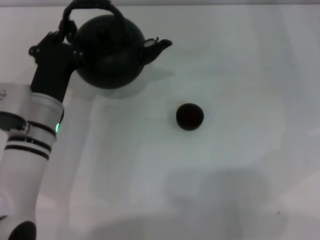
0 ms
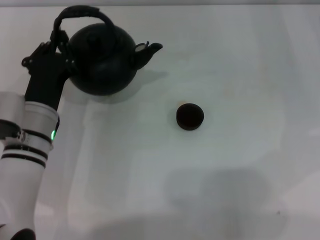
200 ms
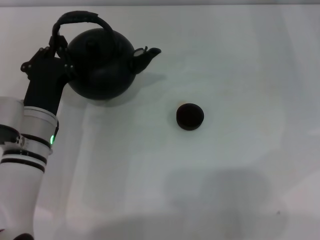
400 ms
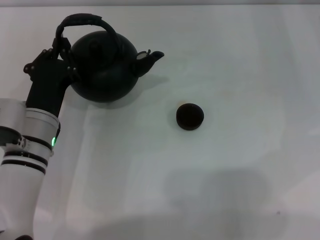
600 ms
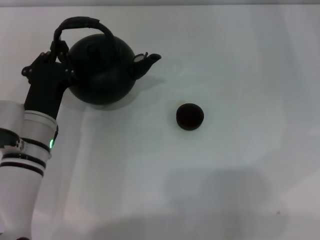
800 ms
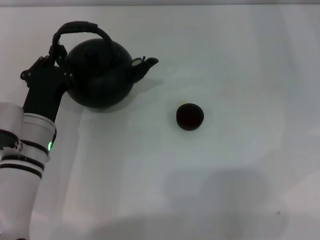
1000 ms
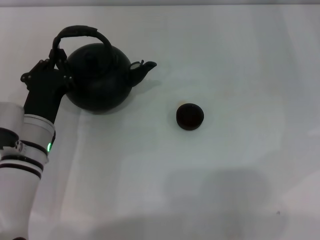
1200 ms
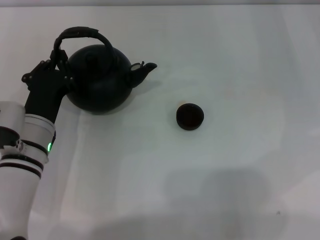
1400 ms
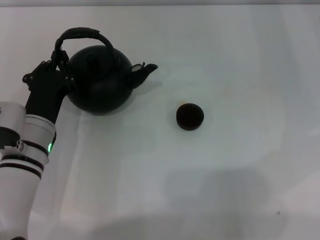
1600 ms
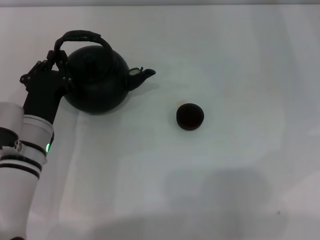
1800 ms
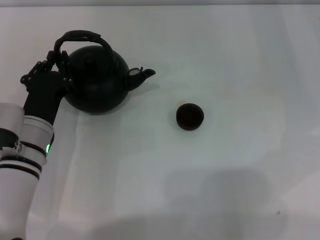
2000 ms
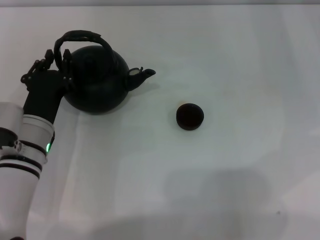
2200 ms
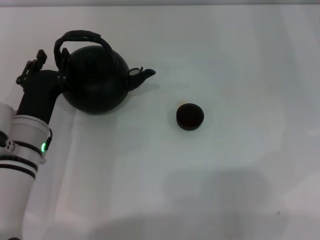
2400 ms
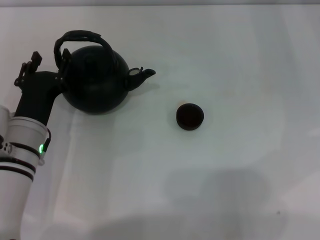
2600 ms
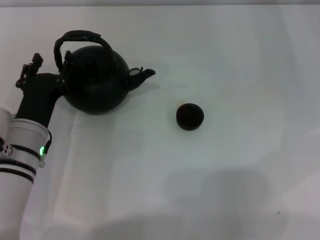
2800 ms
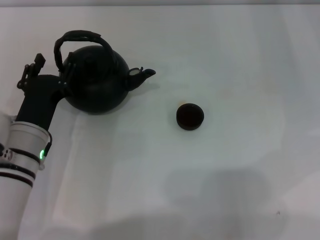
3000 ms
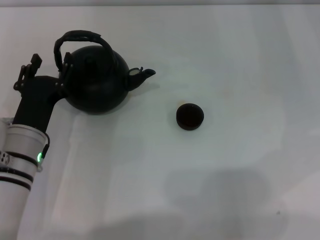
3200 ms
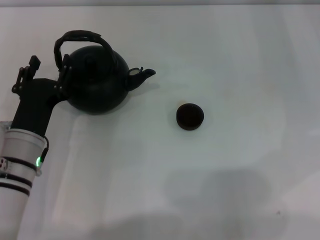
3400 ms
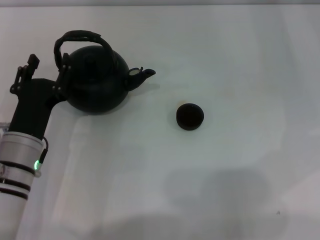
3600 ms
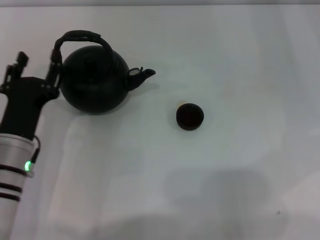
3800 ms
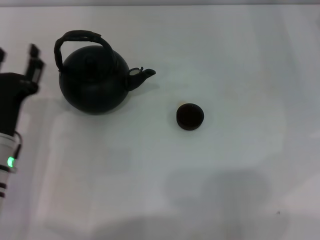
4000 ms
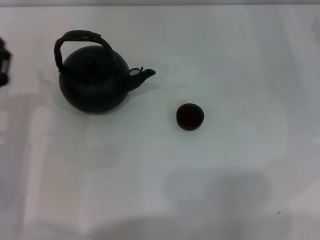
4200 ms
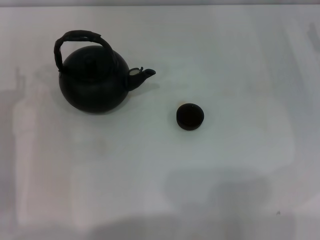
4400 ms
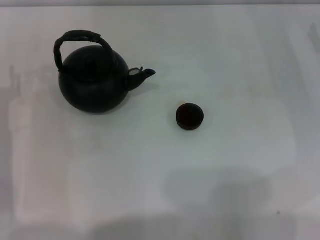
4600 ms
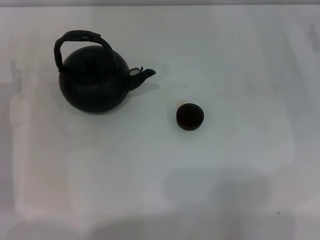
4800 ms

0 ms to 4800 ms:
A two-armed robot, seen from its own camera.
Task of the whole recording: Grasp the handle of the teapot with one hand and pour tea into the teacup.
Step, 0 ms to 3400 ms: Put down the teapot with the left gripper.
0 ms to 1600 ms: The grippers stay close to where they were, moving slightly.
1600 ms to 3200 ms: The left gripper opens up.
3200 ms to 4800 ms: The left gripper goes approximately 10 cm to the left.

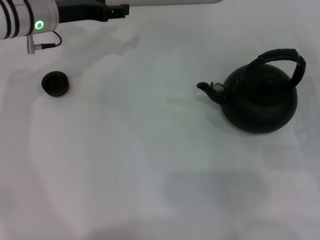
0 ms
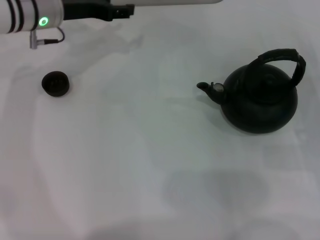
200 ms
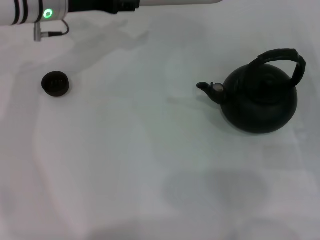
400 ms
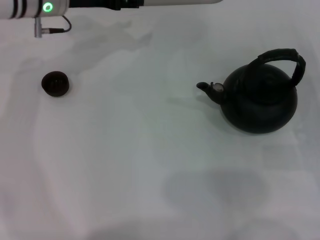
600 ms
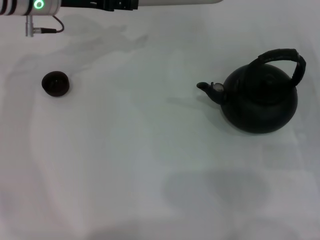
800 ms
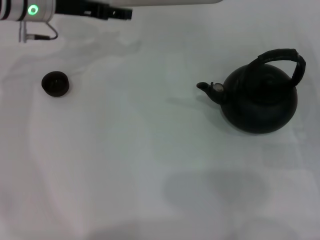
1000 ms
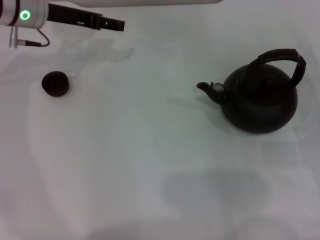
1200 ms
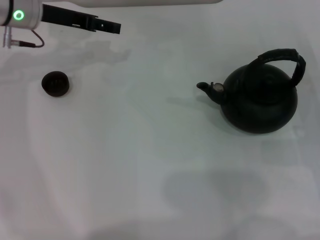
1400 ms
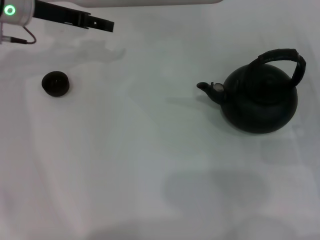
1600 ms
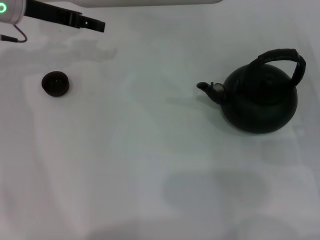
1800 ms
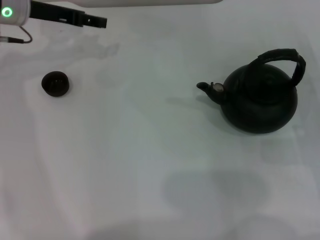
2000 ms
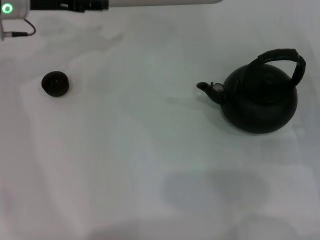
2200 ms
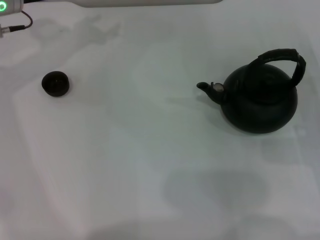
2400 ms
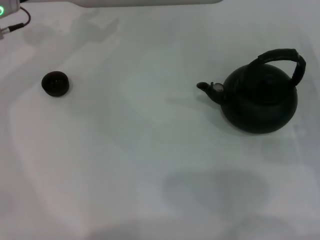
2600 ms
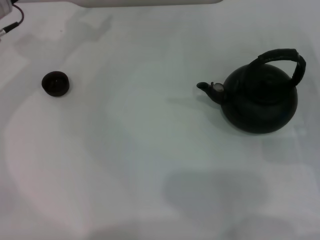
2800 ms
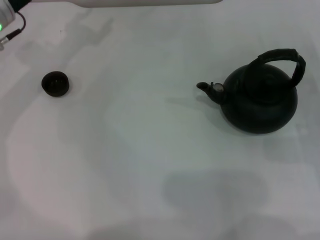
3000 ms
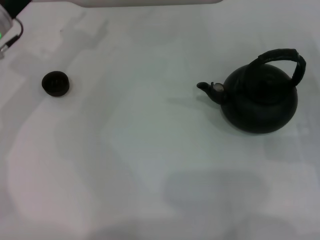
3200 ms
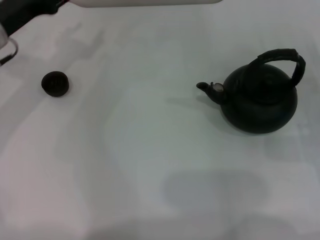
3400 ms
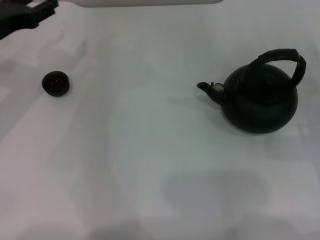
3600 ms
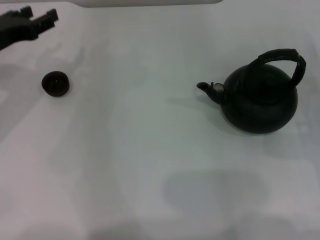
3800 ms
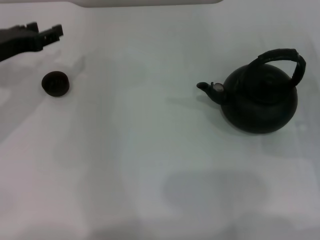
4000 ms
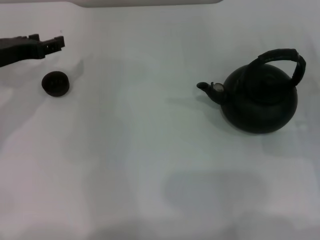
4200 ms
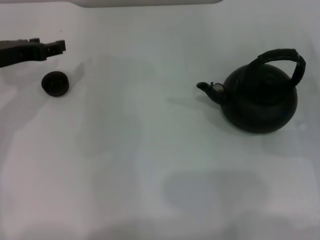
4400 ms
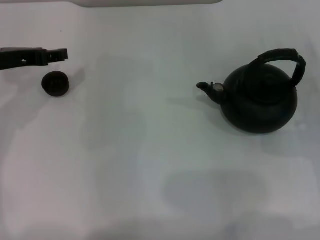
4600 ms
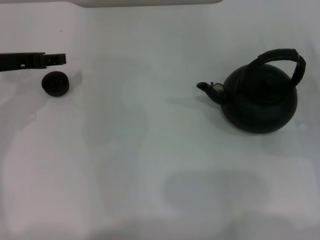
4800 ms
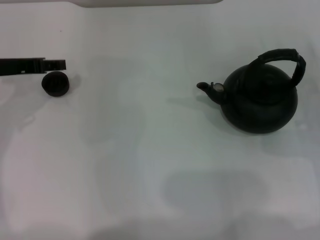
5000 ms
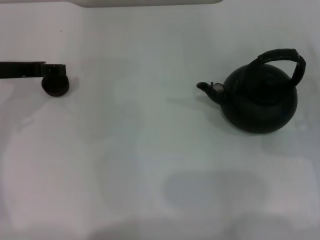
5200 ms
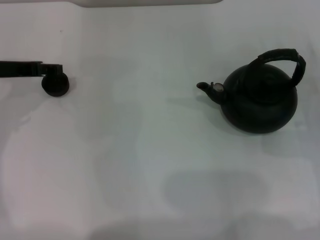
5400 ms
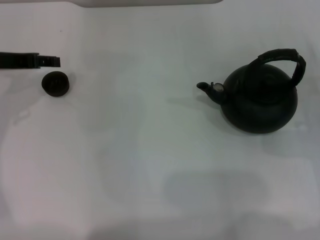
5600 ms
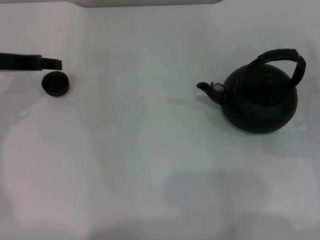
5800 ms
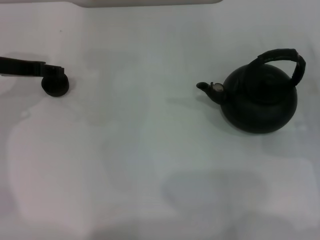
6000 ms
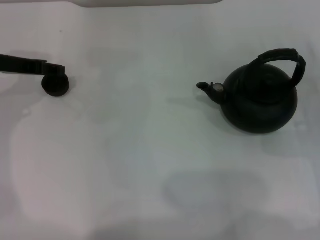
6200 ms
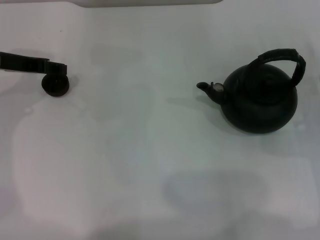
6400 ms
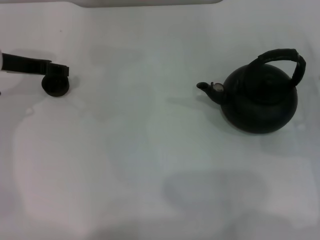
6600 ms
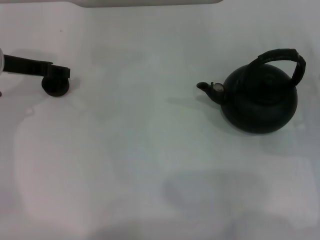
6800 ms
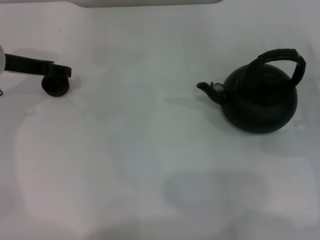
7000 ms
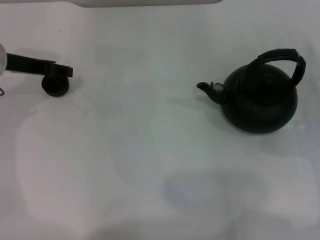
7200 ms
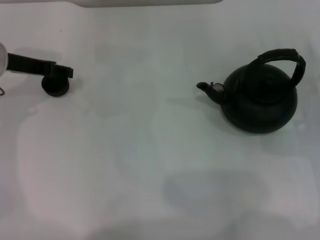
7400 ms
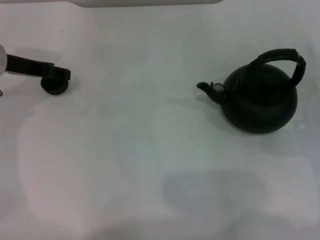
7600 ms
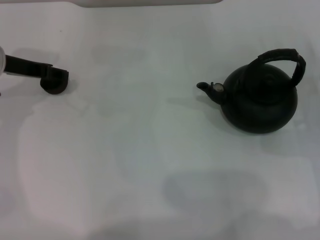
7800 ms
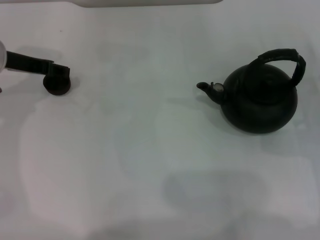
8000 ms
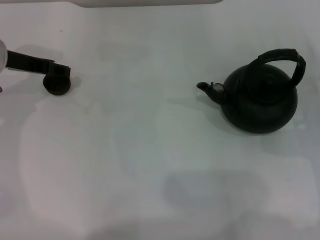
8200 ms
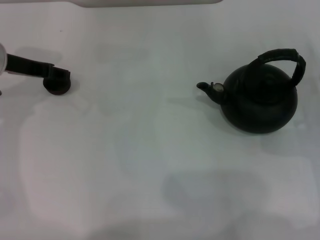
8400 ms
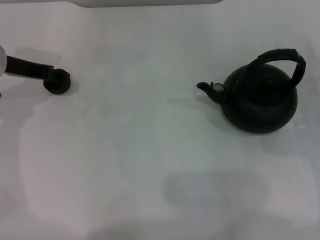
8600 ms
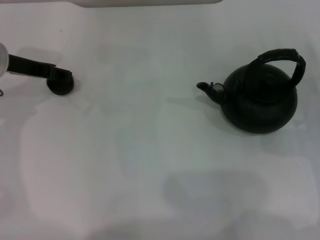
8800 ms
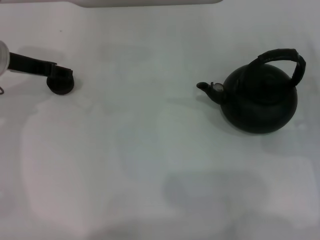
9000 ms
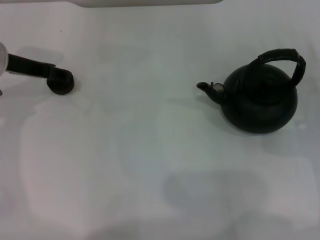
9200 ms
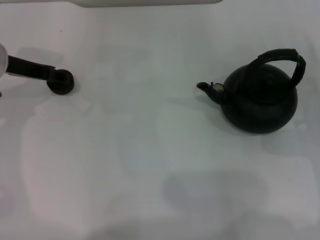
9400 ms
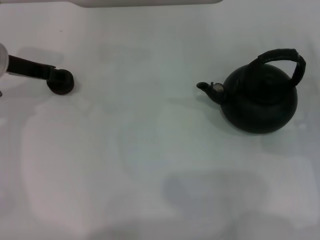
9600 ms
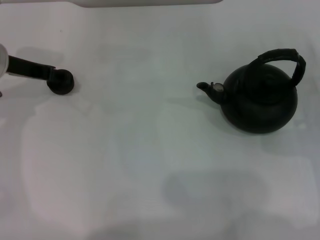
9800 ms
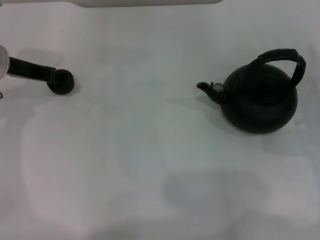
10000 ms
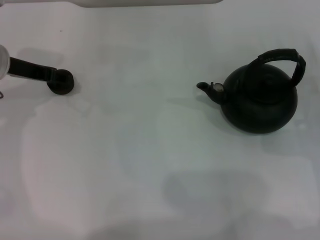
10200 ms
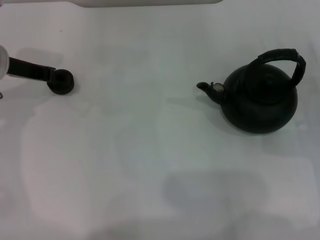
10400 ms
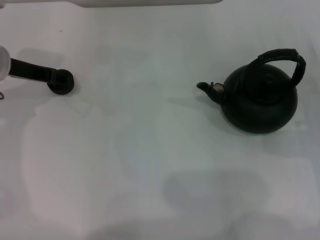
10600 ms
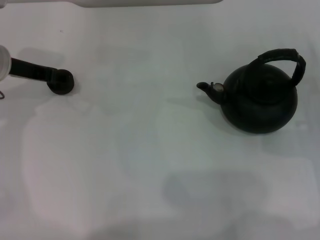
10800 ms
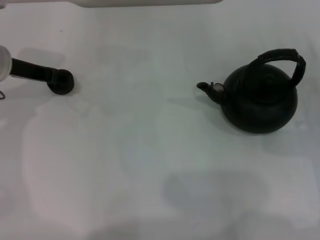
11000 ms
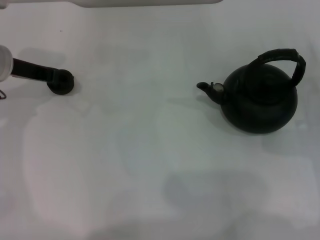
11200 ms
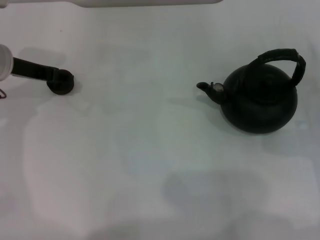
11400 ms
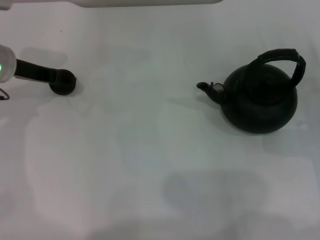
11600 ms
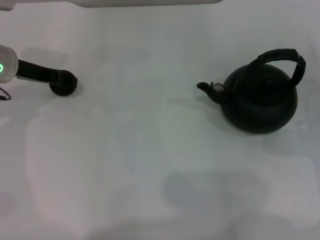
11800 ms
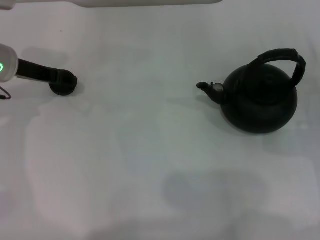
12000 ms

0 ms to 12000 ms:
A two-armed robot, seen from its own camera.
Task of the whole recording: Grasp the handle of the teapot with one hand and pour tea into the teacup.
0 ms to 1600 ms: The left gripper closes its fingers.
1600 ms to 3000 ms: The left gripper shifts by roughly 5 cm.
3000 ms to 4400 ms: The left gripper moves backward, about 5 cm.
4400 ms to 6000 ms: The grippers stay close to where they were, moving slightly.
7600 ms to 10400 ms: The two grippers keep their place.
10400 ms to 12000 ms: Both grippers stay put.

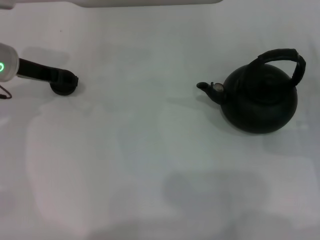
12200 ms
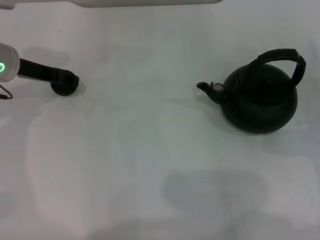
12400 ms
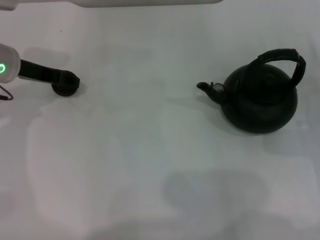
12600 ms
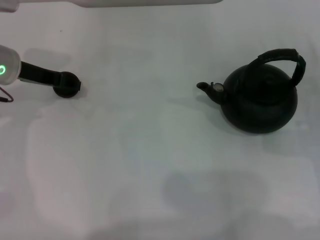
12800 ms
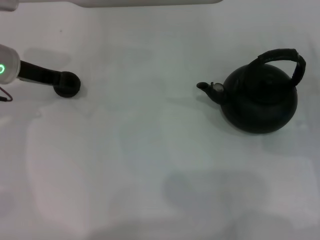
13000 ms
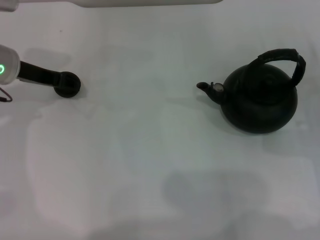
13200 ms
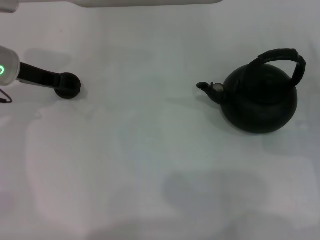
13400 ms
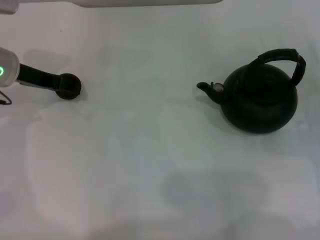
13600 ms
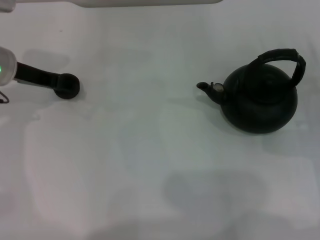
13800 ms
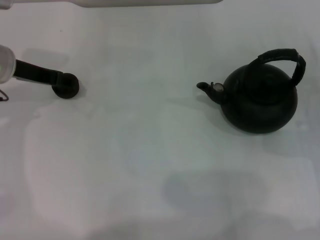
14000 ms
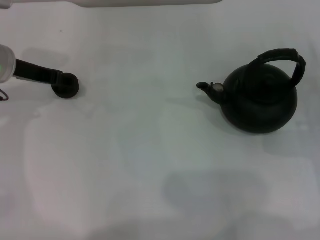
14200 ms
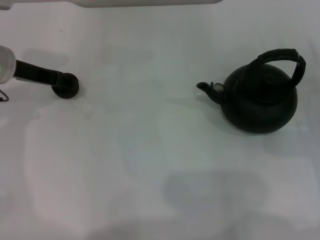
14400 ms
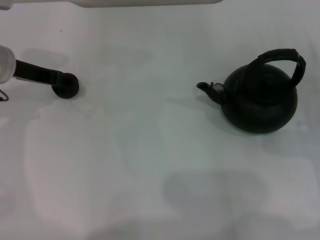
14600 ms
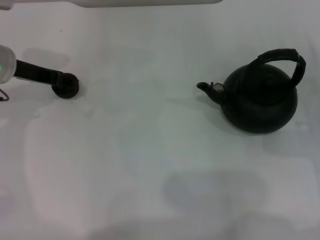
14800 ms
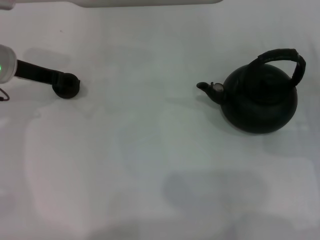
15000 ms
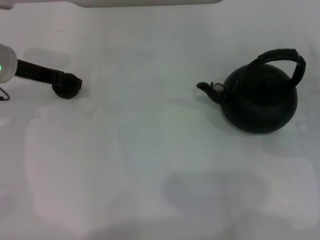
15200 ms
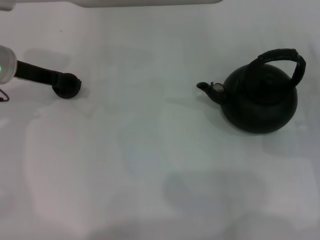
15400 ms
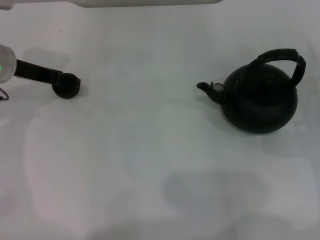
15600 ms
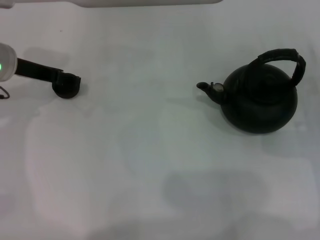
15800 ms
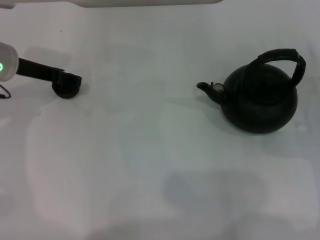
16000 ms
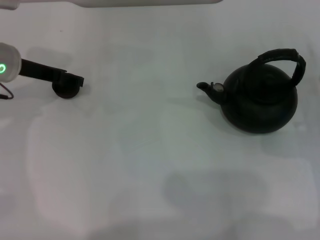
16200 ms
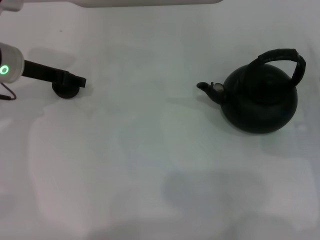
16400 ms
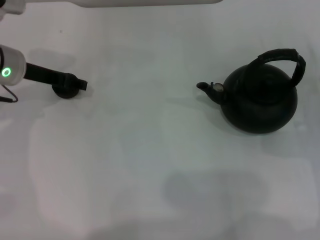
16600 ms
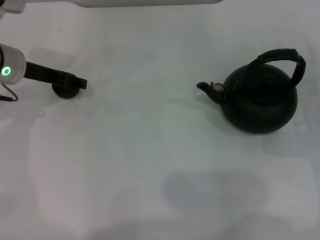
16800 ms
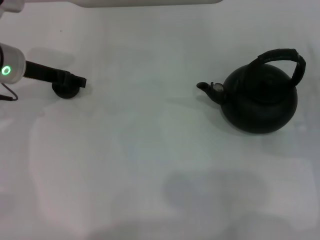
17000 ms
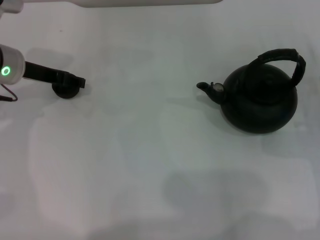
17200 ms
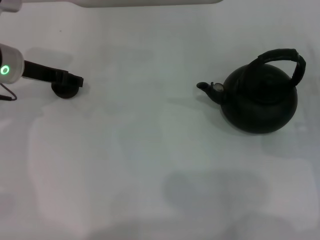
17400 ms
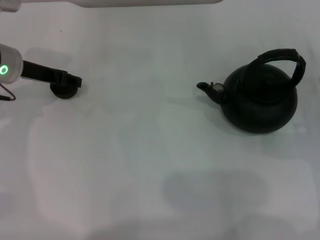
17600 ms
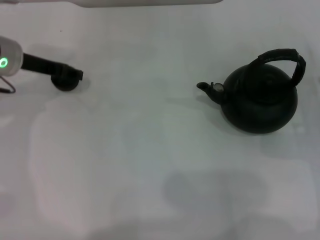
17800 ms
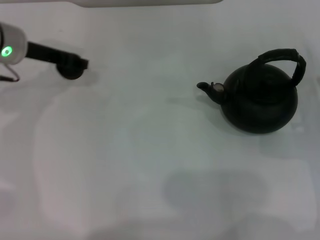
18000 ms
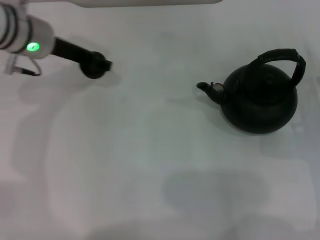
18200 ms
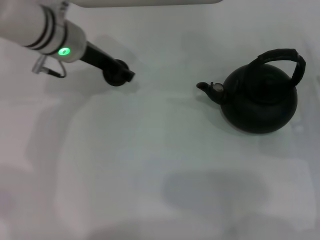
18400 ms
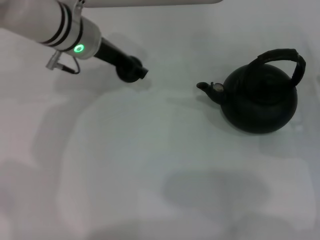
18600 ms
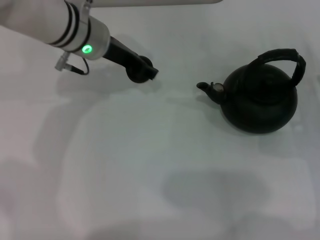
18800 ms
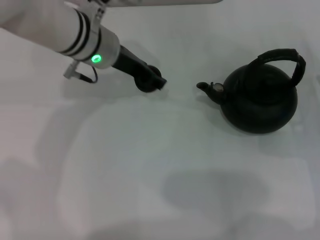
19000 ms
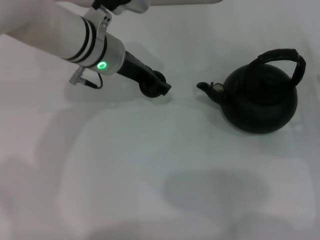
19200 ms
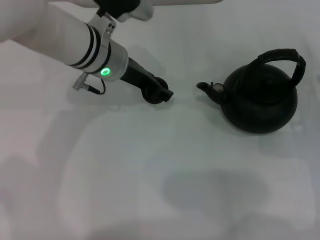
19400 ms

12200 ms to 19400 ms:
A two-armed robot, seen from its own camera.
Task of the whole recording: Grasp the handle of the teapot with one hand and pour tea into the teacup.
Step, 12200 ms to 18000 ms: Pick up the teacup with the left gripper.
12200 ms to 15000 ms: Both grippers stay about where they are.
15000 ms to 16600 ms: The left gripper opens.
16600 ms to 18000 ms: The left gripper closes up.
18000 ms to 19400 ms: The left gripper goes about 15 cm to the right.
